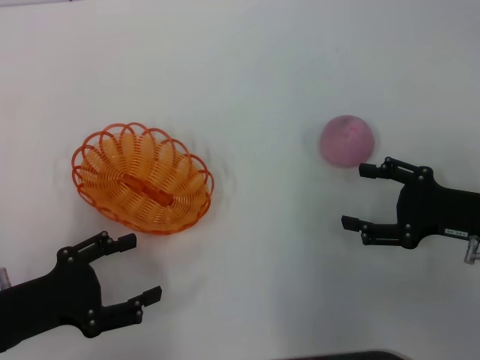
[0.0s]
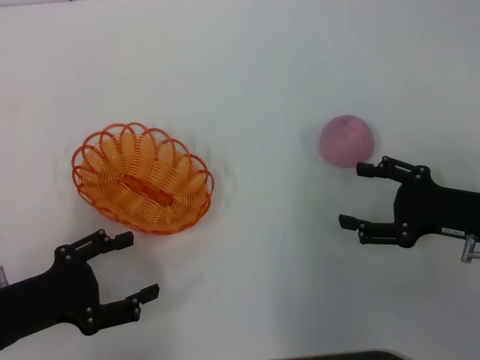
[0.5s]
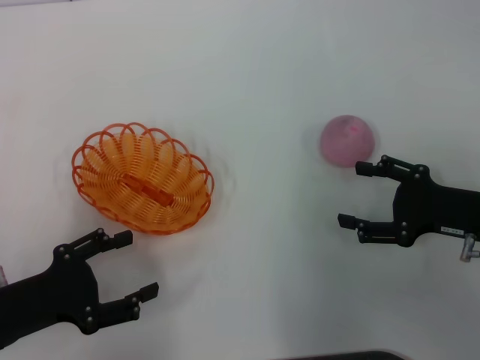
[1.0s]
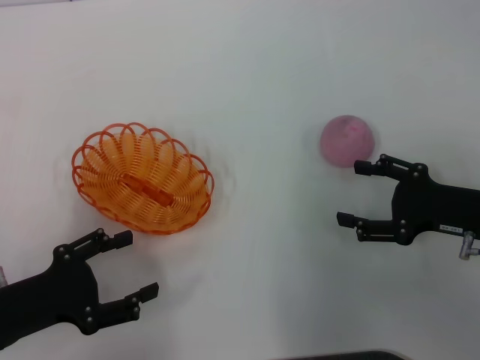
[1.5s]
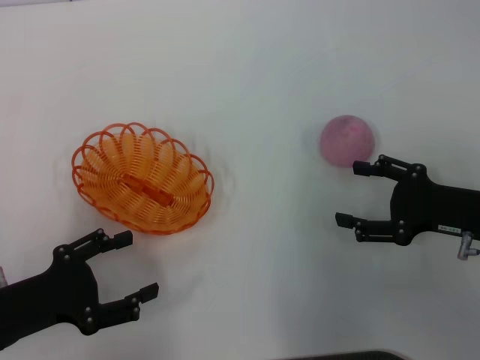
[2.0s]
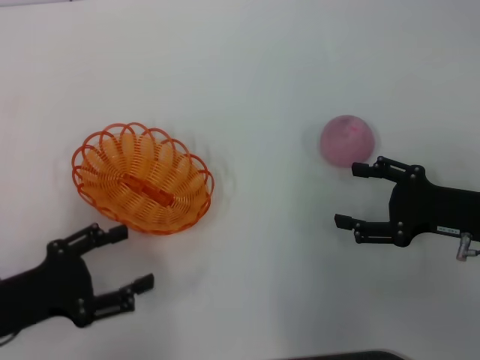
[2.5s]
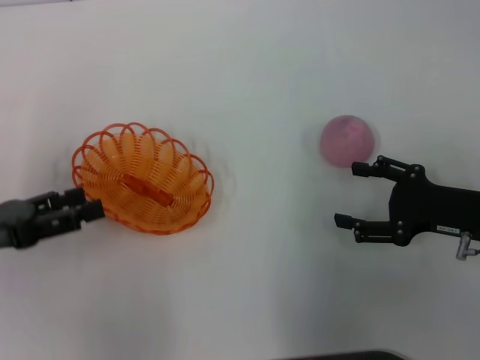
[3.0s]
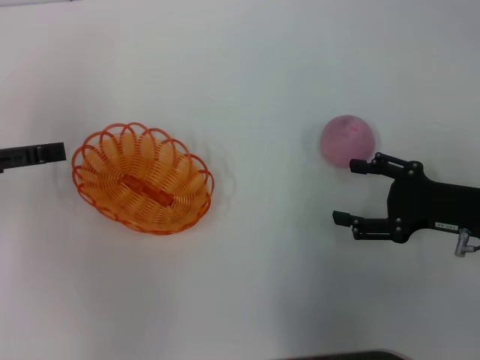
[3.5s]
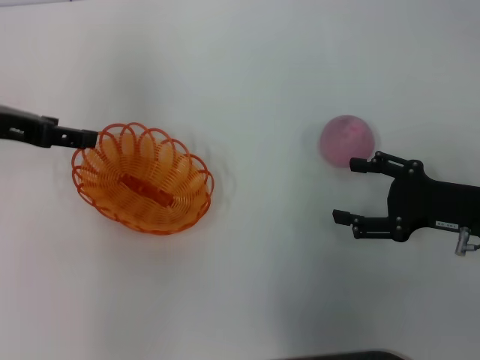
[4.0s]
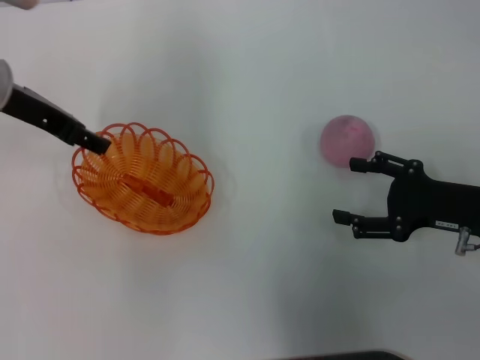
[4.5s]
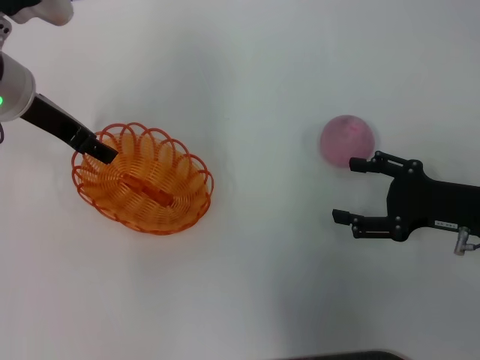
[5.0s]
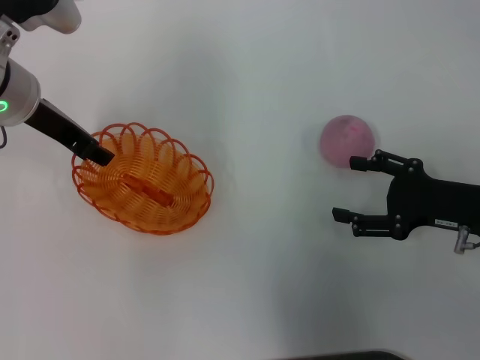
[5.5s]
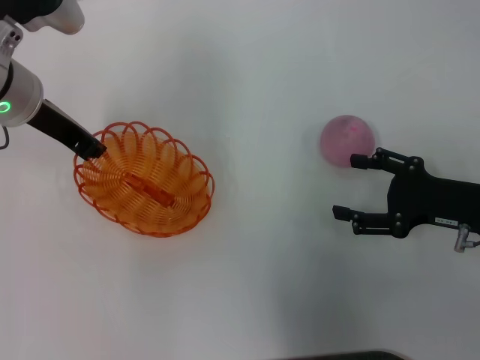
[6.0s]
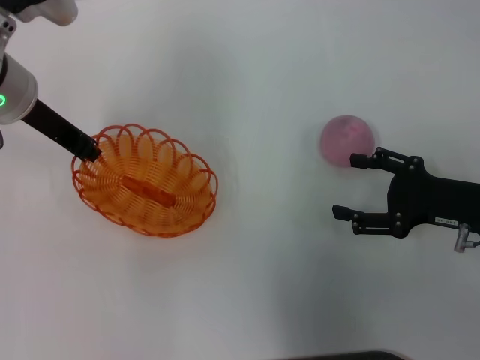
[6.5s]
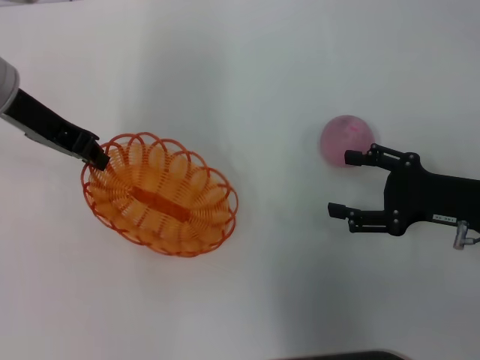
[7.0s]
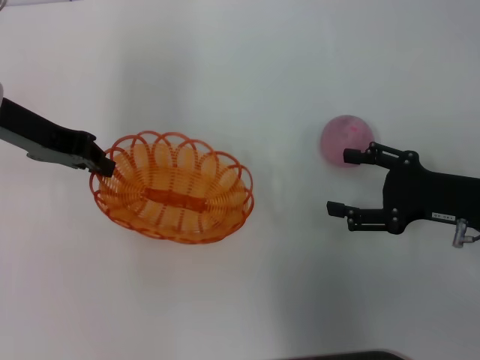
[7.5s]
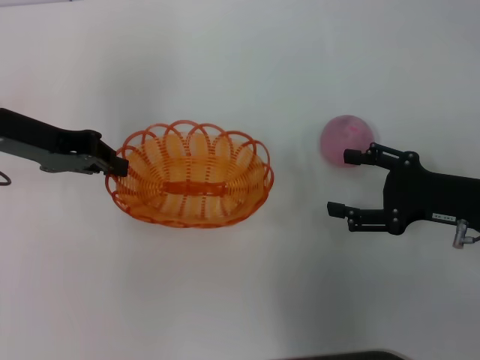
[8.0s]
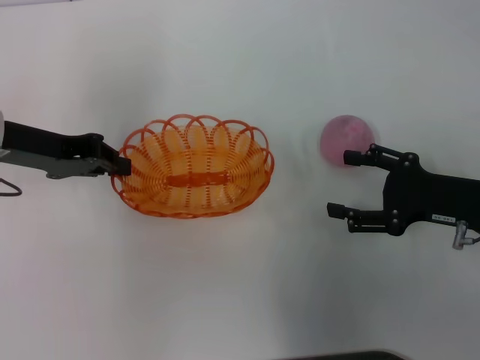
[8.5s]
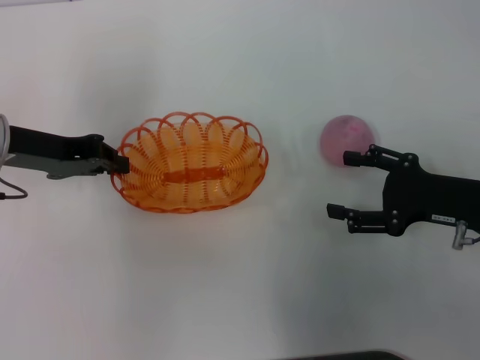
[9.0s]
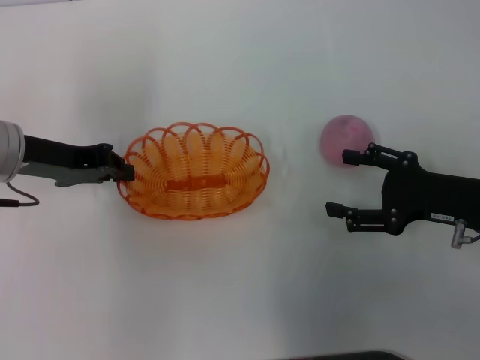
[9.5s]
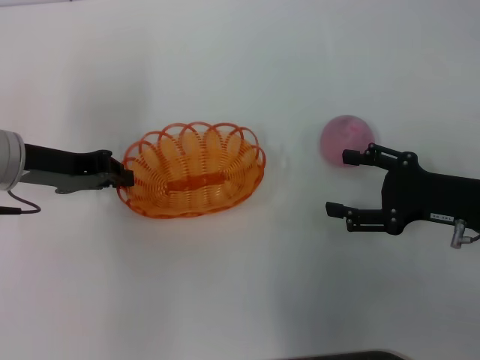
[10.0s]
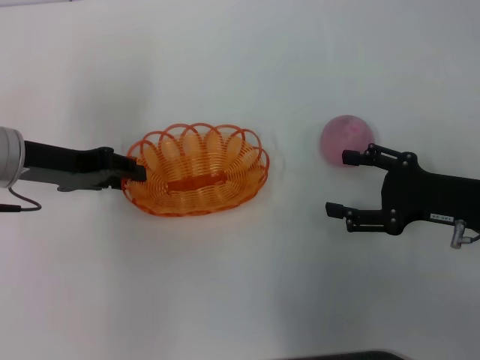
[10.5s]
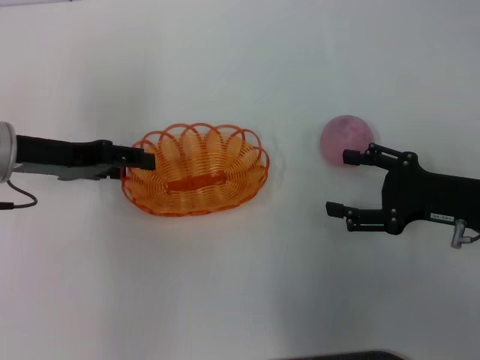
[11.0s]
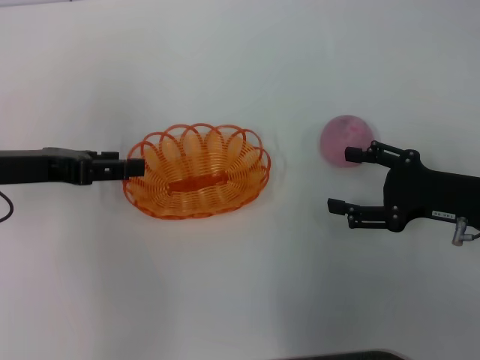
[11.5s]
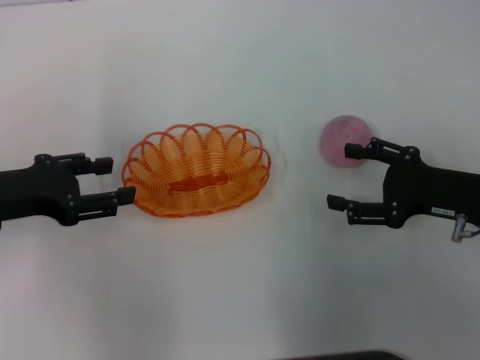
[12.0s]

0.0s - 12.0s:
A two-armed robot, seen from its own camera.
Step, 0.0s - 7.5s: Pick up the basket with the left gripper.
0.0s - 2.0s: Neither gripper changes place.
2.0s - 4.0s: The left gripper shifts approximately 20 cm forward and upward.
4.0s - 6.0s: The left gripper travels to the right by about 10 cm, and closes.
6.0s - 8.0s: The left gripper ends up about 5 cm from where it was.
8.0s - 10.0s: The left gripper moves approximately 5 cm.
10.0s - 12.0s: The left gripper shifts roughly 5 cm backward, and opens its fingers.

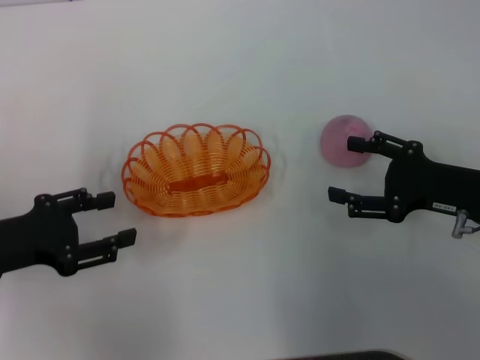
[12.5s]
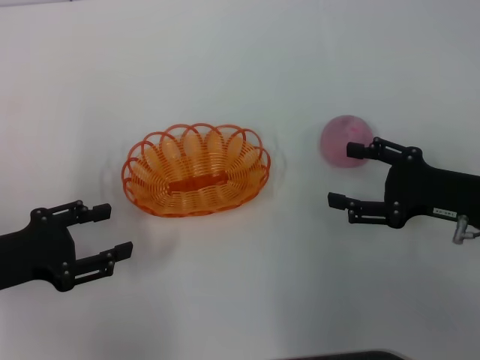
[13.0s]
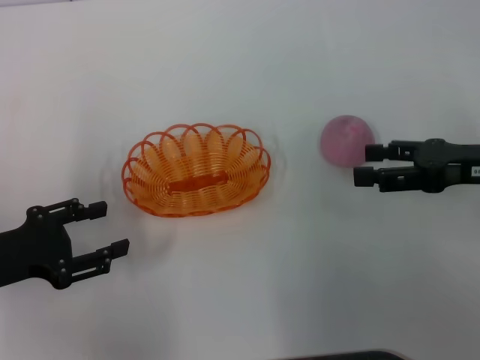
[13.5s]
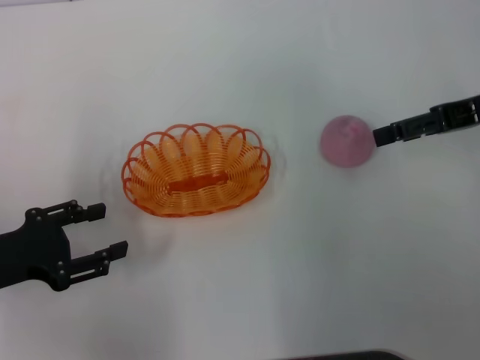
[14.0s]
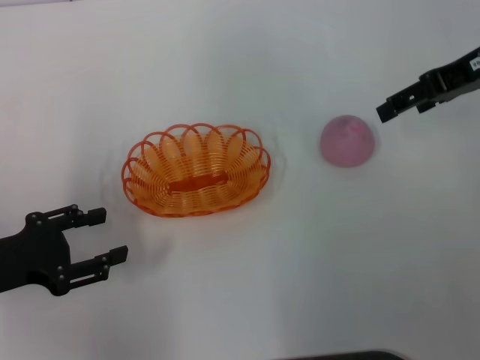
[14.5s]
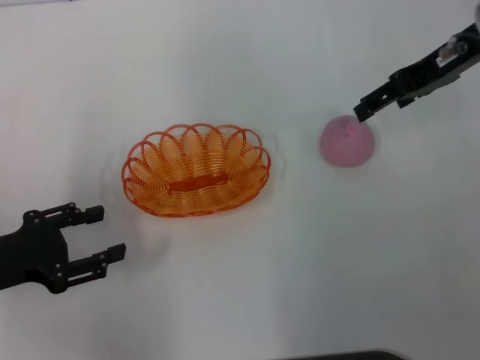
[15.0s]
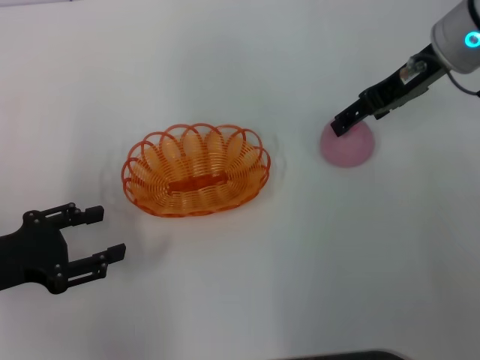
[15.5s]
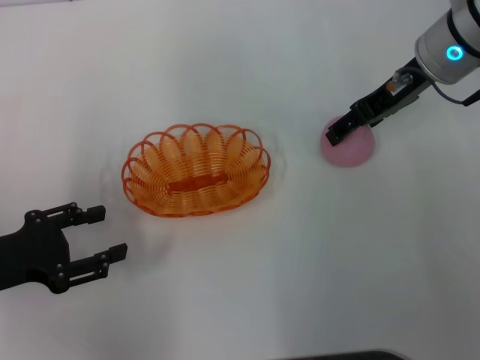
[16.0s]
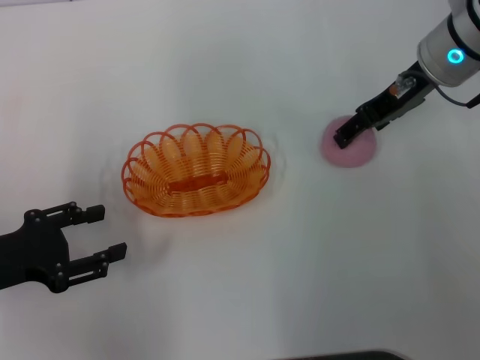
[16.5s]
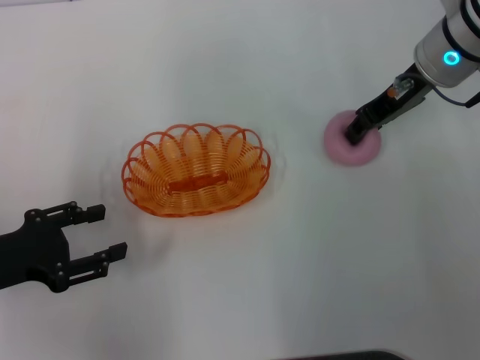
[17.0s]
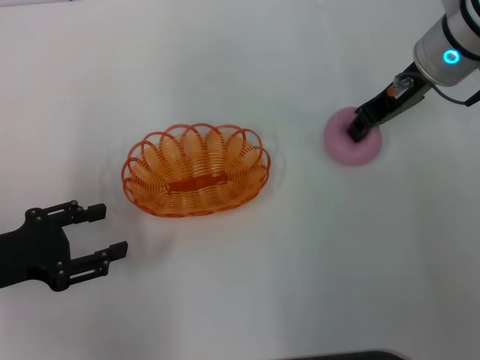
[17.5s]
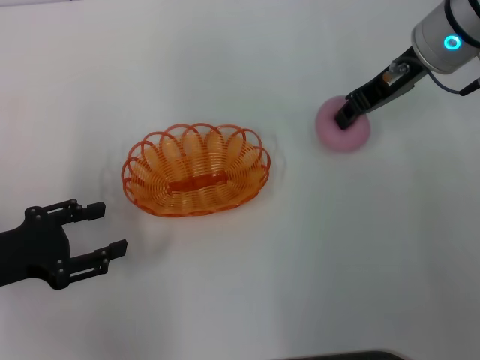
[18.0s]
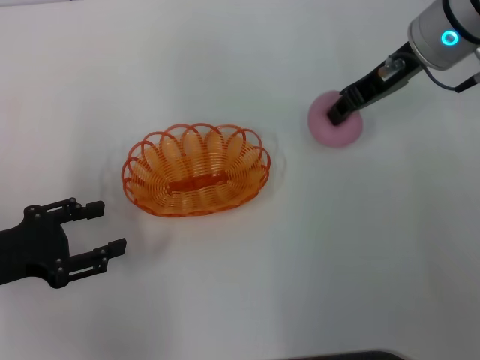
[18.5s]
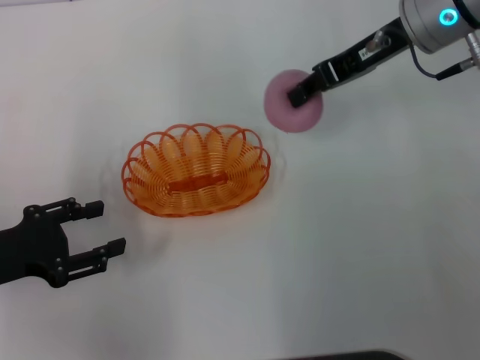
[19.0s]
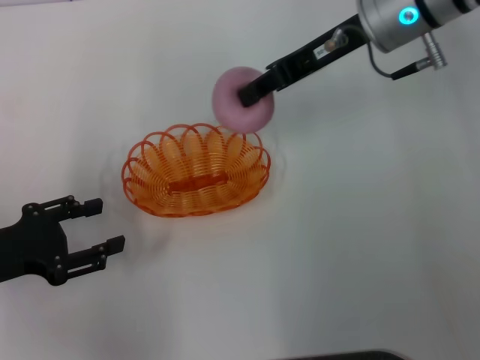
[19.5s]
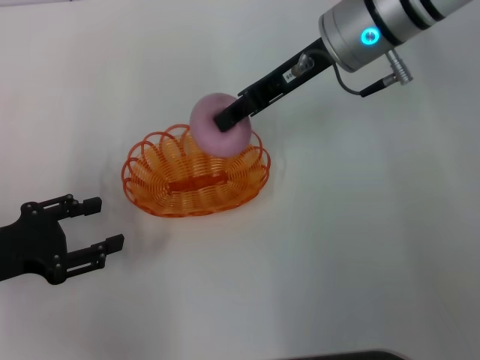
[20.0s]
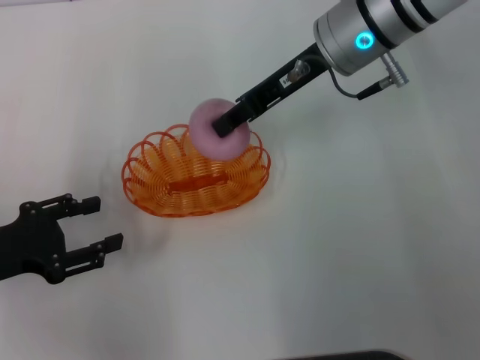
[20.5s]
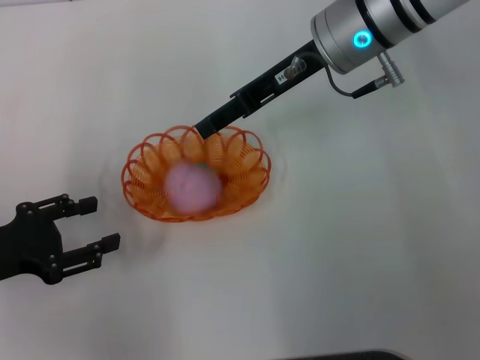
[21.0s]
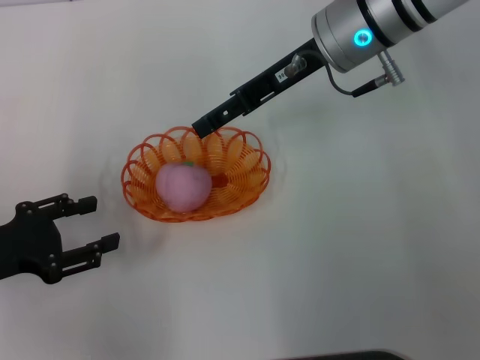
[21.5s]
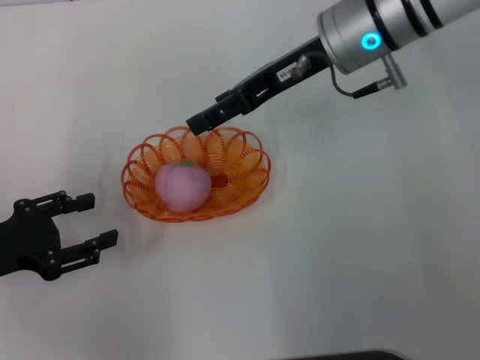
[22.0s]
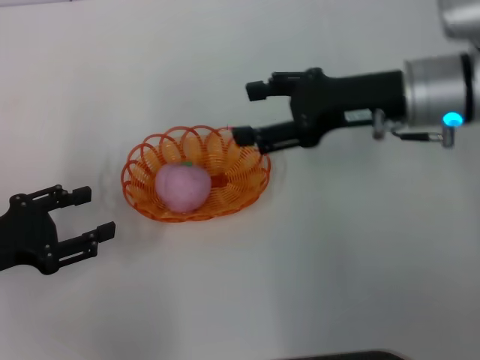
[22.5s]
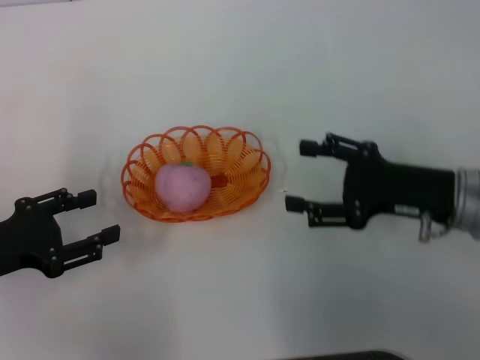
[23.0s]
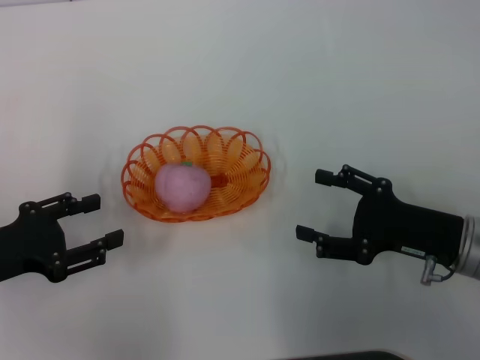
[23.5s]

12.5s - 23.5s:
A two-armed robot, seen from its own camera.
Step, 14.0s - 19.0s: Pick up the peach with the right gripper.
Step, 19.5s - 22.5s: Place the peach into the basket with the right gripper.
12.5s - 14.5s: The right gripper shifts some 20 cm upward and forward.
14.5s - 16.0s: The right gripper travels to the left by approximately 5 cm.
16.0s - 18.0s: The right gripper closes.
18.0s - 20.0s: The right gripper goes approximately 10 cm to the left.
20.0s - 21.5s: The right gripper opens up.
21.5s - 23.5s: The right gripper moves backward, downward and to the right, roughly 25 cm.

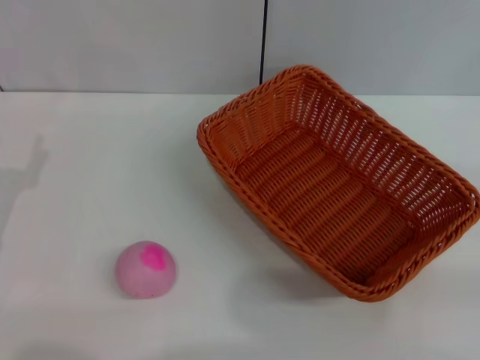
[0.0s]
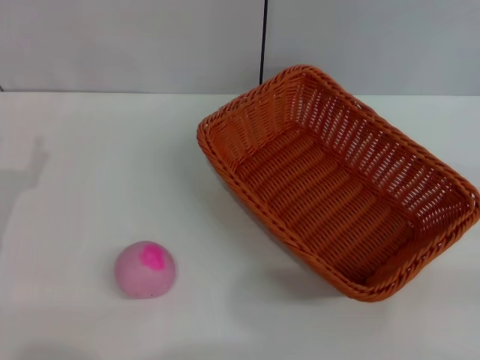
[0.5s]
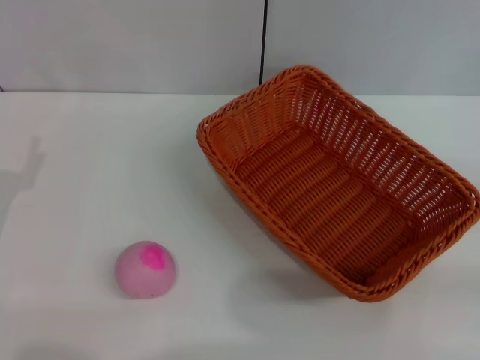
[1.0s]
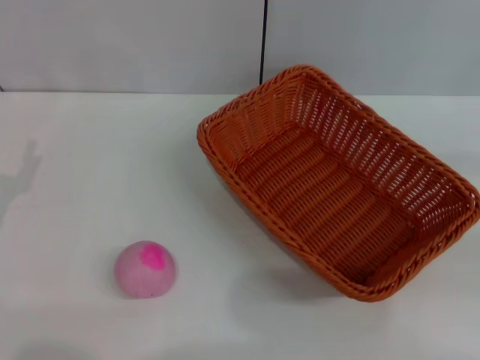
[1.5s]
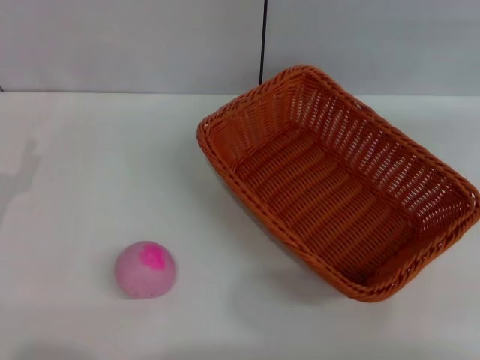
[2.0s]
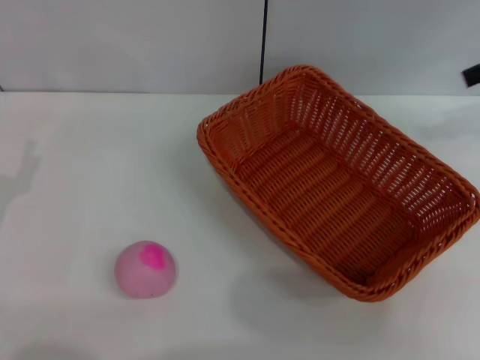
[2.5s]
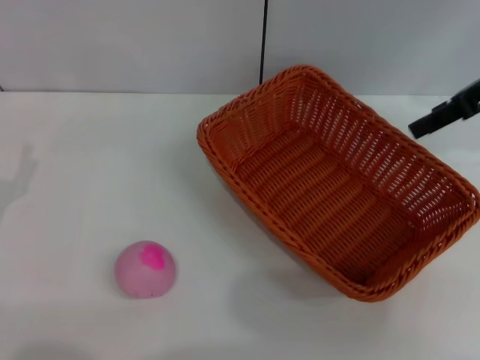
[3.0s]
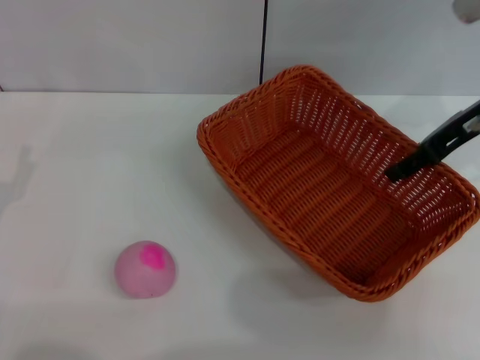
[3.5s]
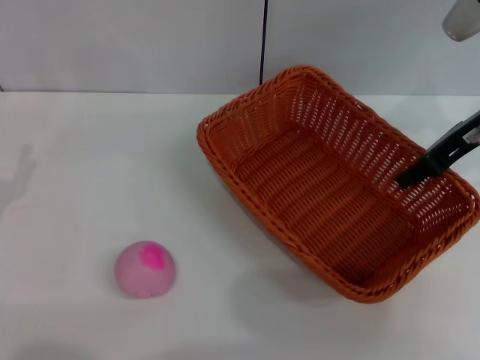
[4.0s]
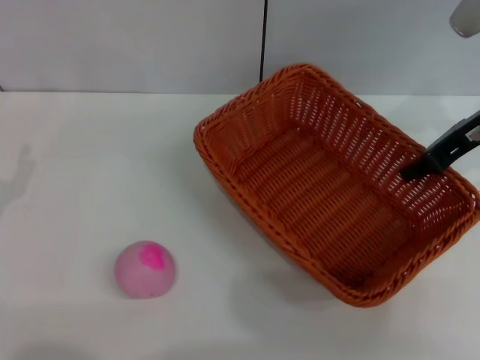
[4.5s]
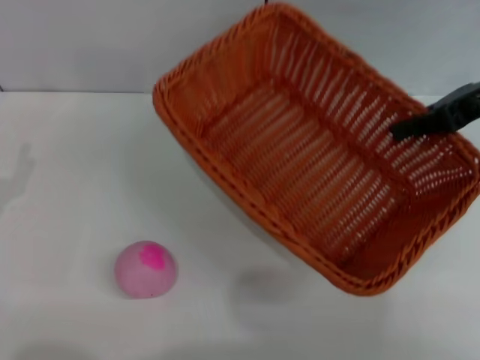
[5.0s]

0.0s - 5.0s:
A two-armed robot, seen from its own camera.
Step, 0.0s - 4.5s: Pick up the light basket with the right gripper.
2.5s - 5.0s: The right gripper heads to the left and downward, covering about 5 cm, and closes up.
